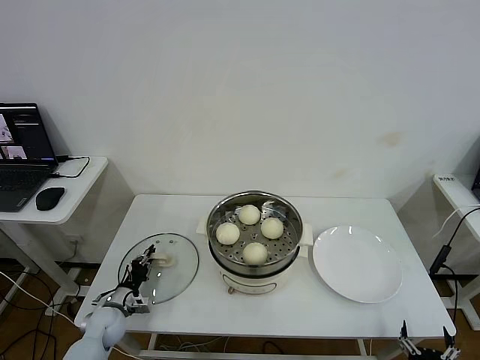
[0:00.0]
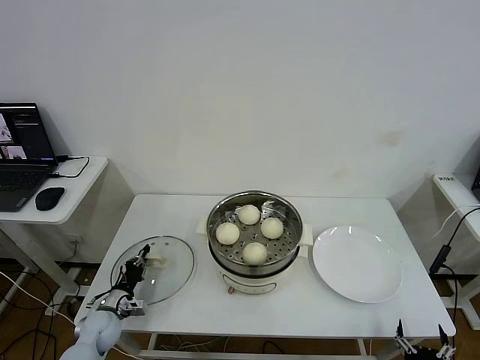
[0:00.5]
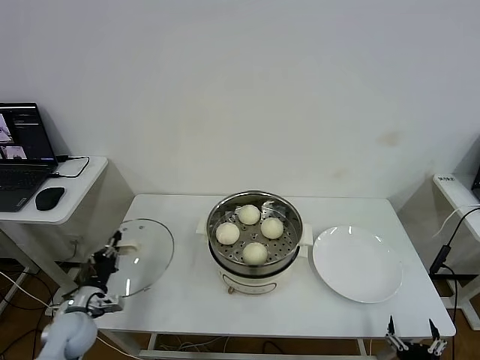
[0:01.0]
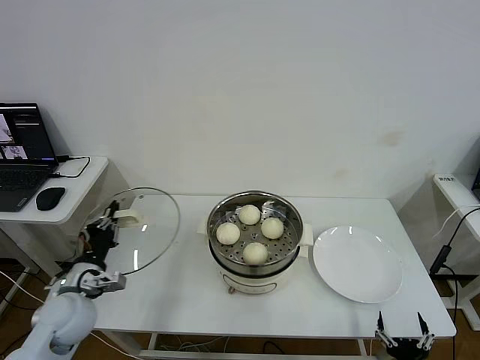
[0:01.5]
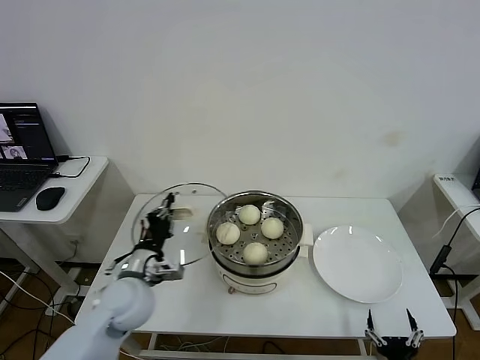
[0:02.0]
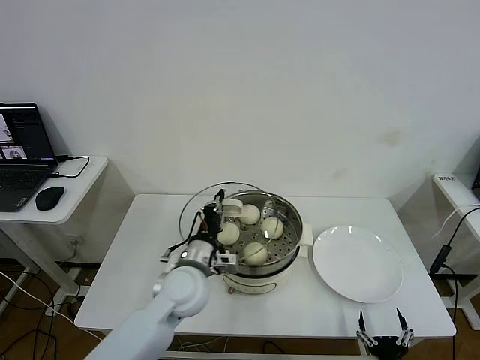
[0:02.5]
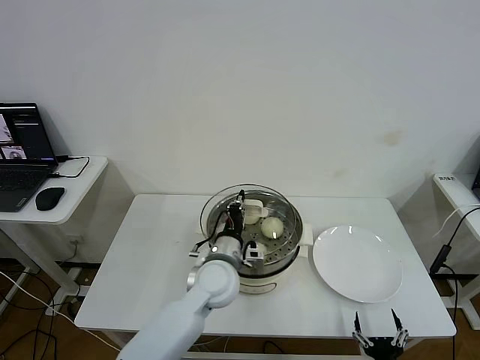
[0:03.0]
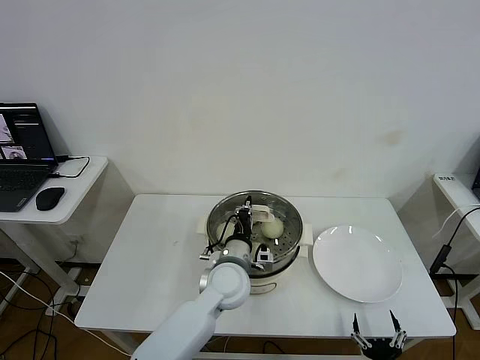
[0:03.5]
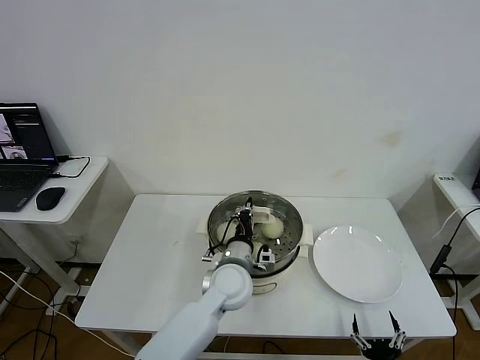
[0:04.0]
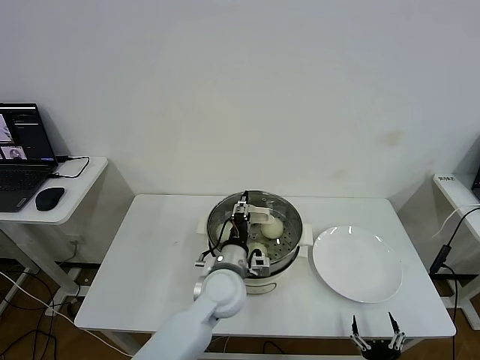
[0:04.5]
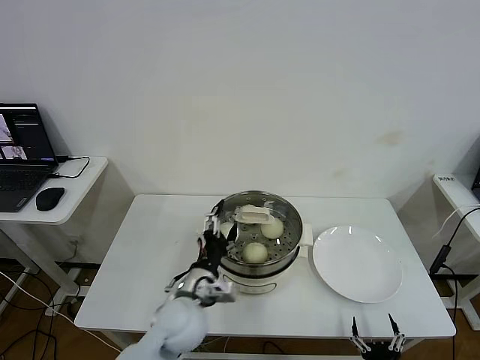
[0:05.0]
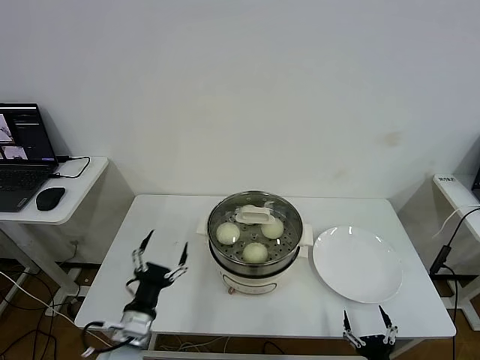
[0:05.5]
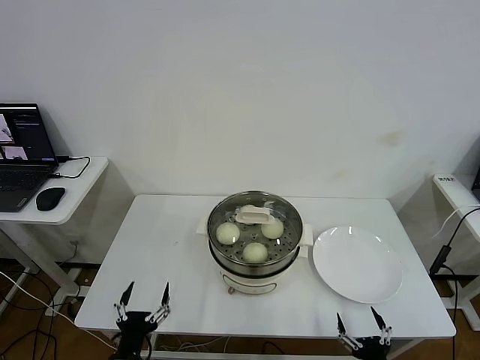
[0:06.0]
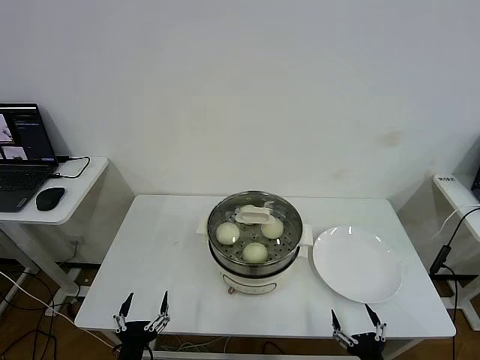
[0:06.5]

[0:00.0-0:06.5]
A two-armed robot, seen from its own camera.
Step, 0.5 to 4.5 s: Place the pot lid on the steamer with left gripper.
0.0 to 2.0 s: The left gripper shifts approximately 25 cm upward and to the right.
2.0 to 4.5 s: The left gripper is displaced to the right by approximately 20 cm, and opens up.
4.5 to 6.5 s: The left gripper heads backward, to the left and downward, covering roughly 35 cm, and opens up.

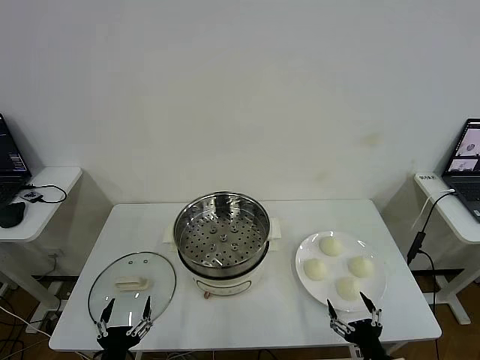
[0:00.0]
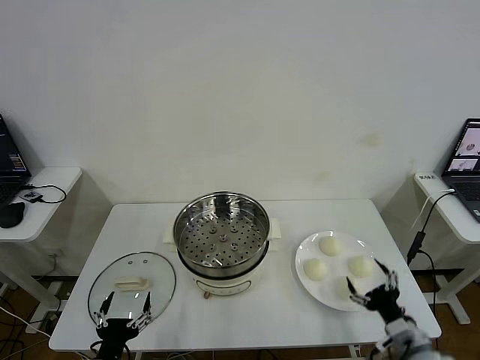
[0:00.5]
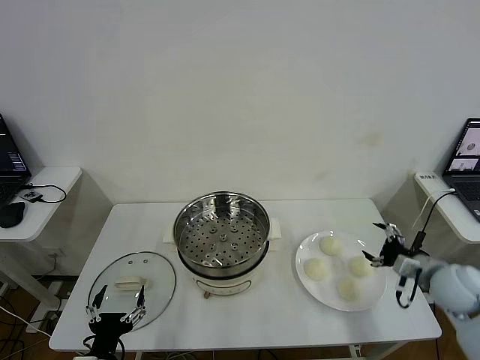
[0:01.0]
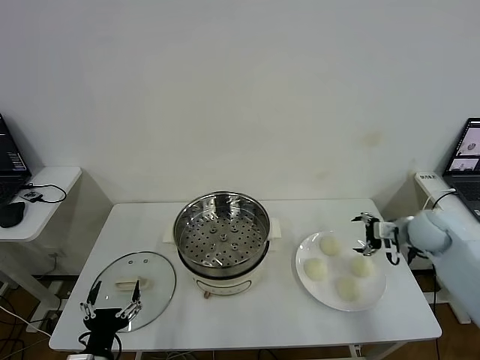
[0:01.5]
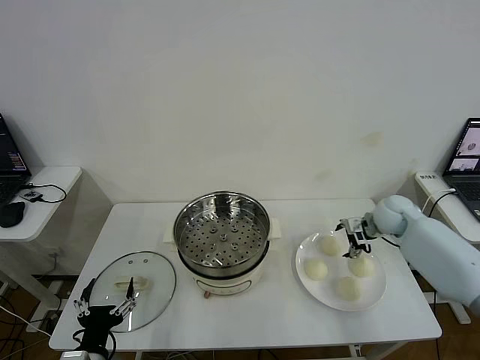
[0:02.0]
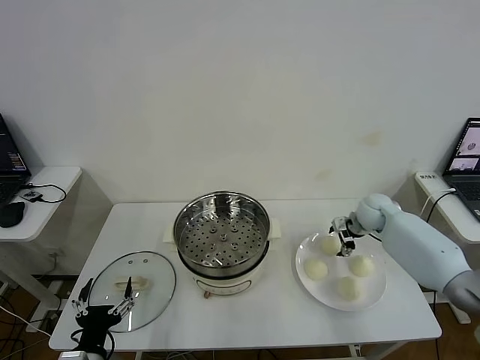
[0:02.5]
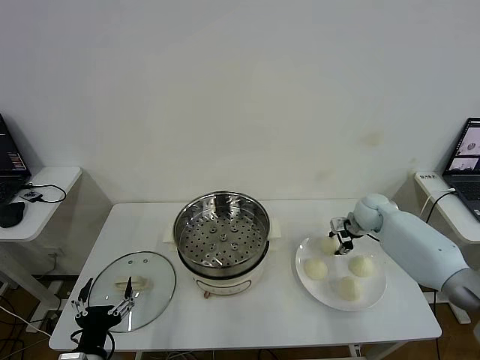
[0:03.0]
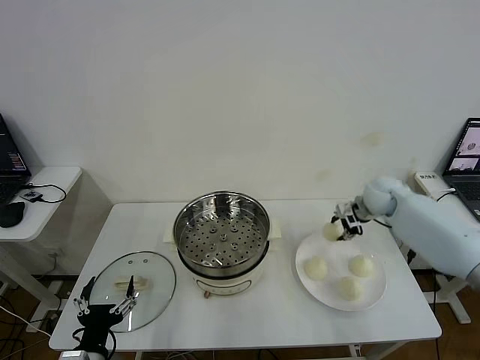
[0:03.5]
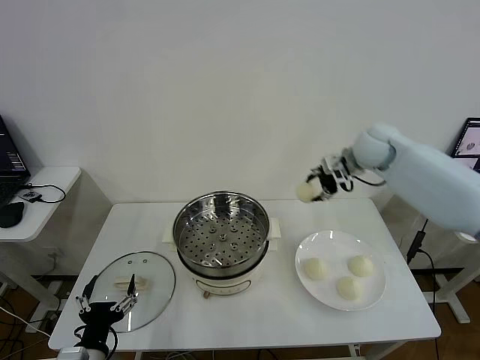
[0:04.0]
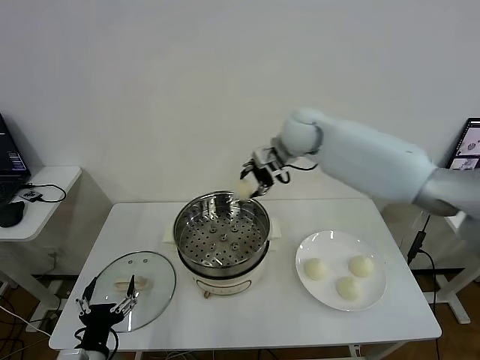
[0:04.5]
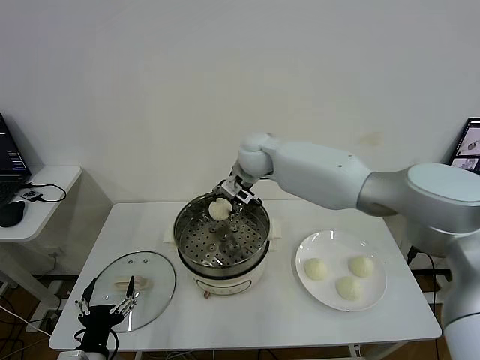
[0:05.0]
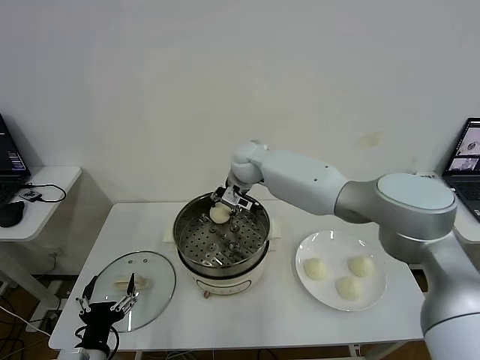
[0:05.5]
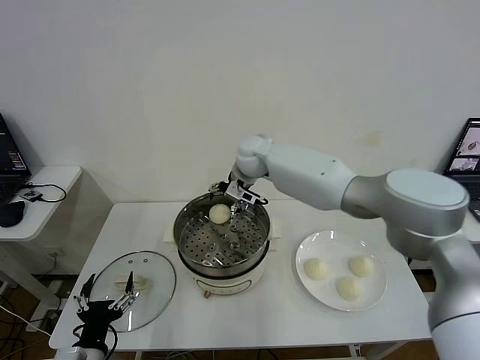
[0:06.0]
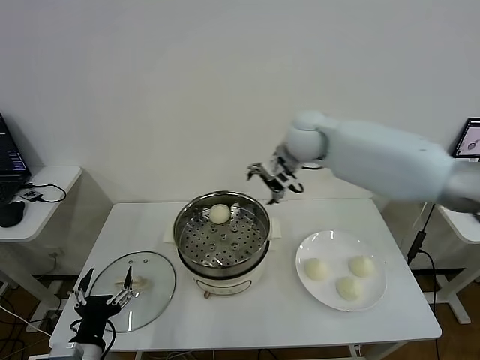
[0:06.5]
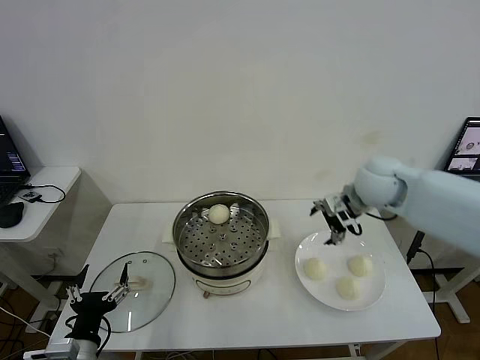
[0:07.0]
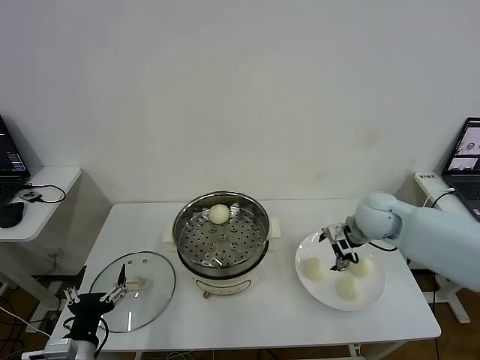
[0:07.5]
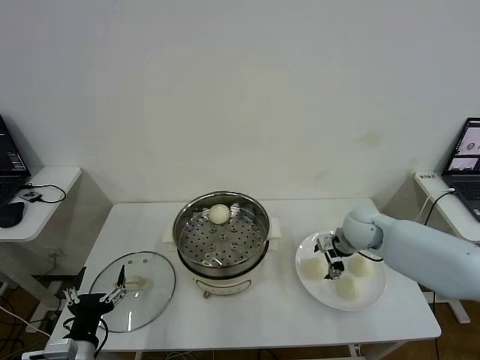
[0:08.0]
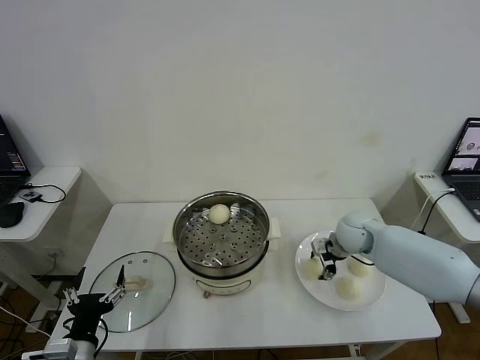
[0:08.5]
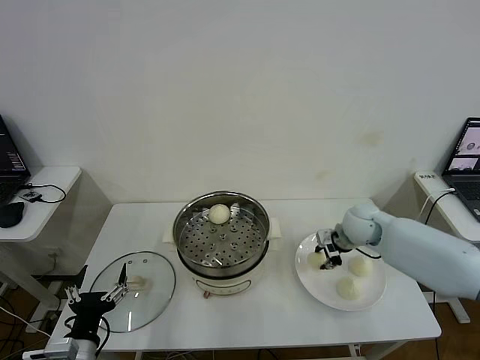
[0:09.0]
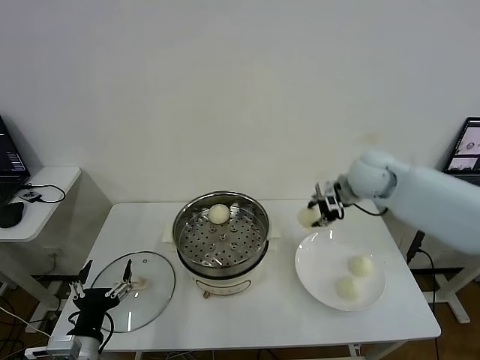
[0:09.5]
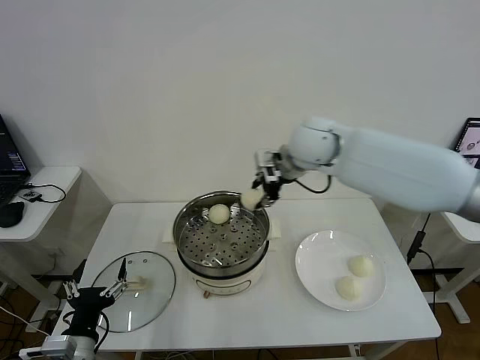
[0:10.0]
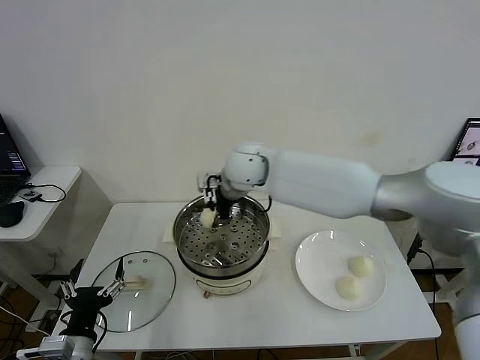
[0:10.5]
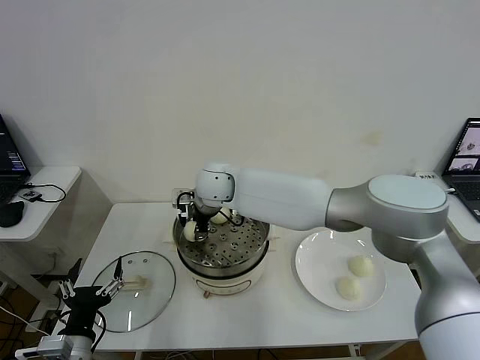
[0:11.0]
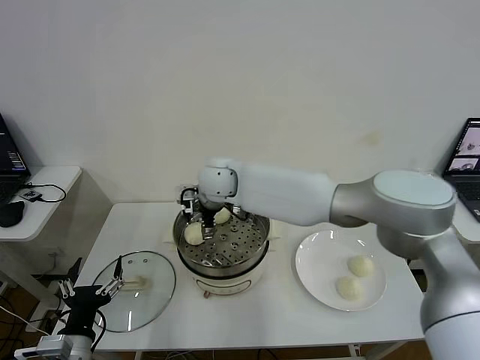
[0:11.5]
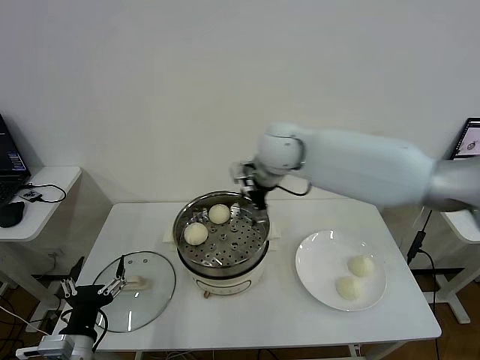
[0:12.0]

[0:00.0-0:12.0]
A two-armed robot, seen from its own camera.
Step, 0.0 to 3.0 s: Grasp the baozi in the plate with right gripper.
Step, 3.5 to 5.5 s: Place the baozi on the steamer with right gripper.
Step, 6.0 to 8.5 s: Grasp the baozi in the plate with right gripper.
Step, 9.0 to 11.0 s: Place the baozi on the steamer with right gripper.
2.0 to 4.0 s: The right gripper moves upward and to the left, about 25 cm, and closes.
4.0 to 6.0 s: The right gripper heads to the left, covering some 20 cm, and opens up.
6.0 to 8.0 s: The right gripper shifts some 30 cm to the right, downward and backward.
8.0 to 10.0 s: The right gripper heads upward and to the left, covering some 30 cm, and closes its fingers.
10.0 to 12.0 s: The right gripper goes to the left and returns, roughly 15 cm each way, and opens up.

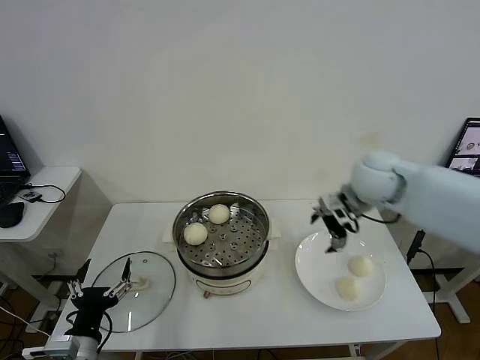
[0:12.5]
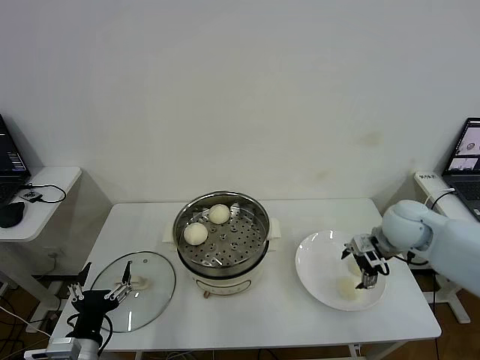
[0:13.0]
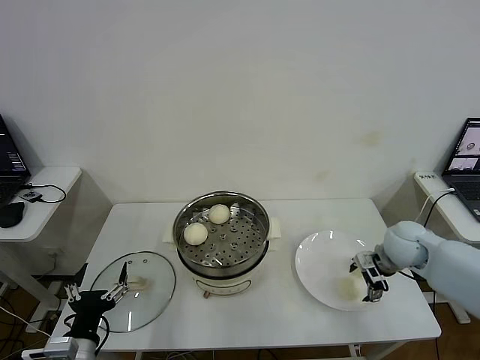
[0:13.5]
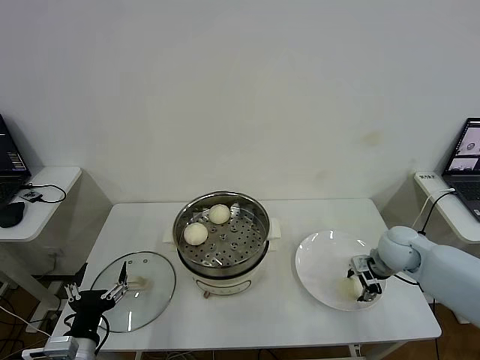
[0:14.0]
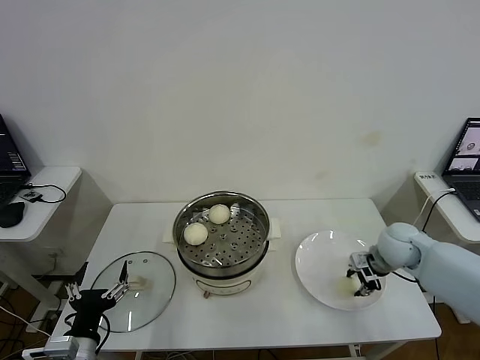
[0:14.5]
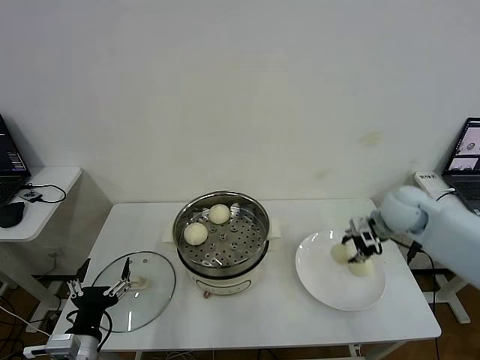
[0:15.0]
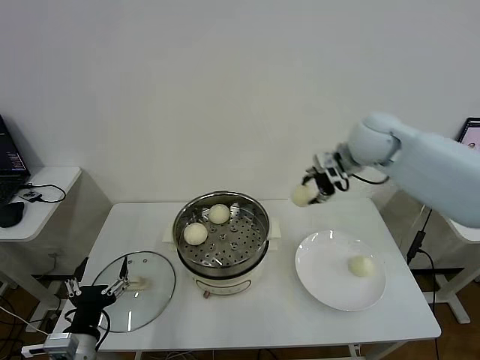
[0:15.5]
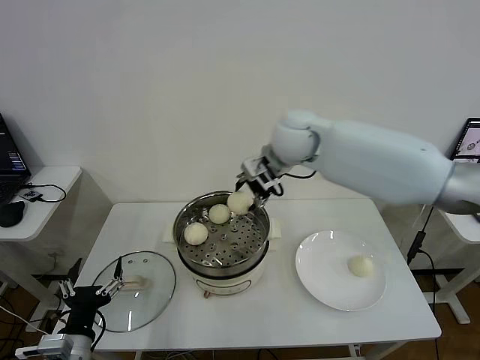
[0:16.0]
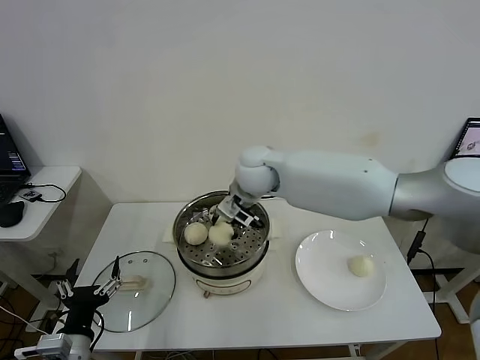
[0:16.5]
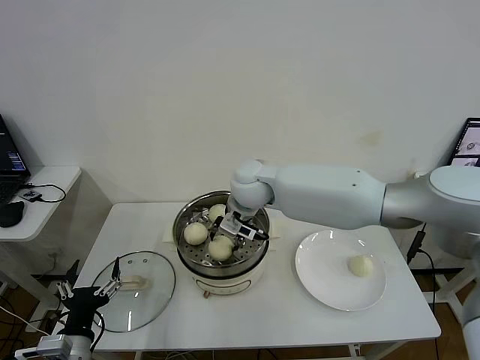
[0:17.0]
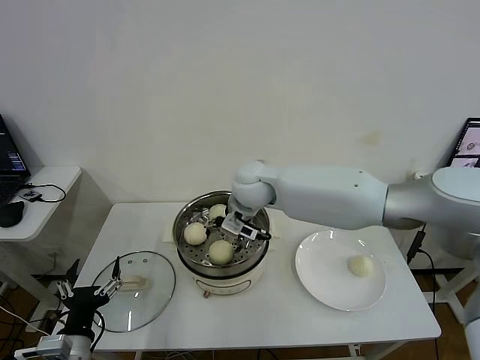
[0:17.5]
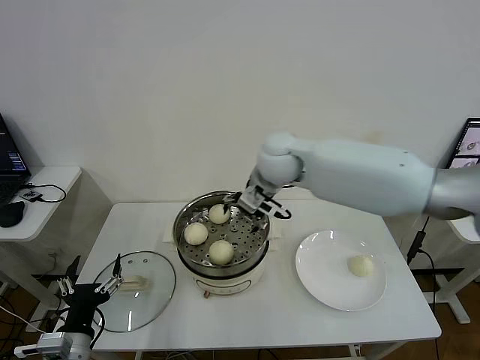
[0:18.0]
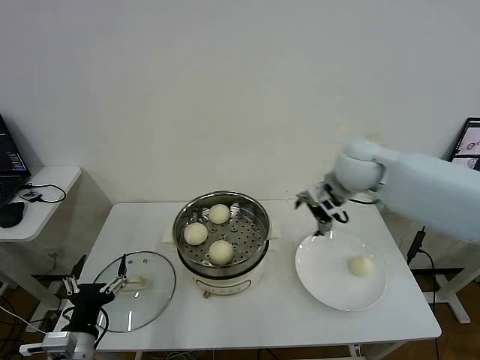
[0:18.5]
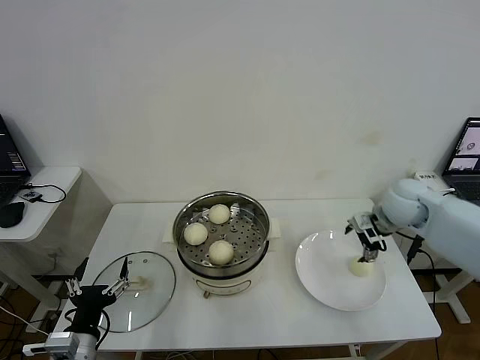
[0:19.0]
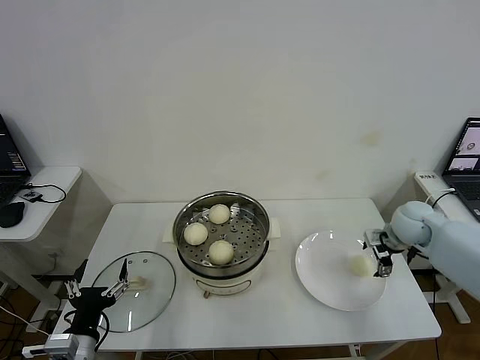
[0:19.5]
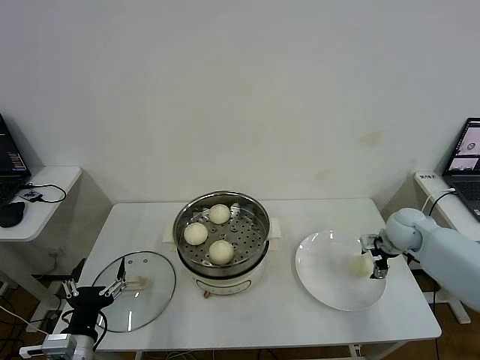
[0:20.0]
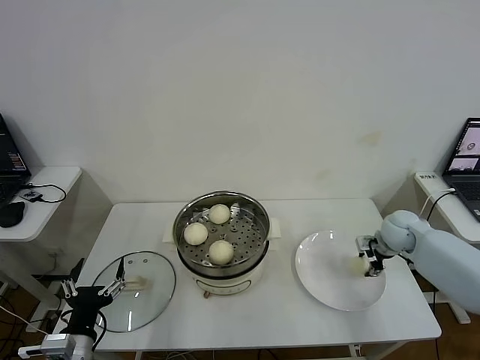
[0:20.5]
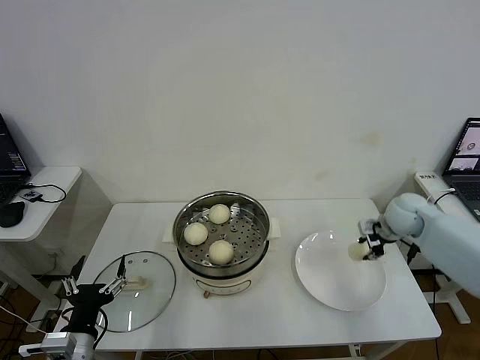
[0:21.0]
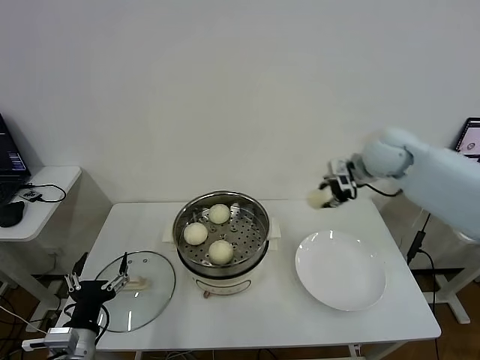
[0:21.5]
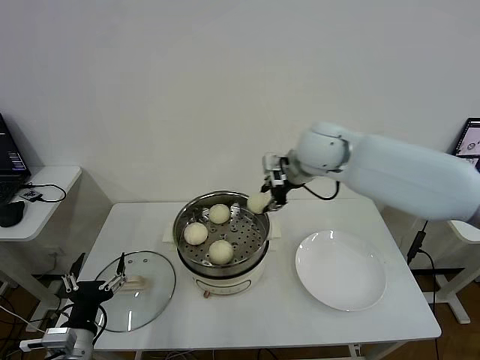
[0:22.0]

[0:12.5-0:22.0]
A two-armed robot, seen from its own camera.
Step, 12.5 to 14.5 s: Grasp the baozi in the plate with right gripper.
Step, 15.0 to 17.0 s: Place the baozi on the steamer with right gripper.
Step, 17.5 to 20.5 s: Grasp the baozi in the plate with right gripper.
12.5 to 14.5 s: The right gripper is displaced downward and to the right by approximately 15 cm, and closes up.
14.5 to 16.5 s: The right gripper is displaced to the left and upward by some 35 cm.
16.5 to 18.0 s: The right gripper travels to the right by some 5 cm, and opens its fingers.
18.0 to 20.0 s: The right gripper goes approximately 35 cm to the right and downward.
20.0 to 22.0 s: The right gripper is displaced to the left and upward by approximately 35 cm, and closes.
